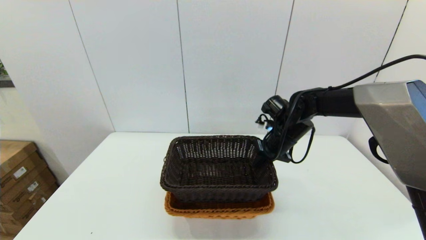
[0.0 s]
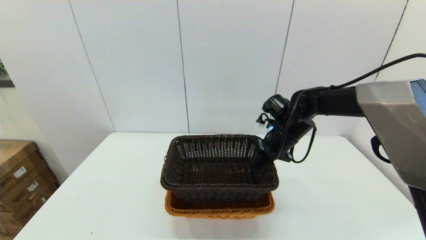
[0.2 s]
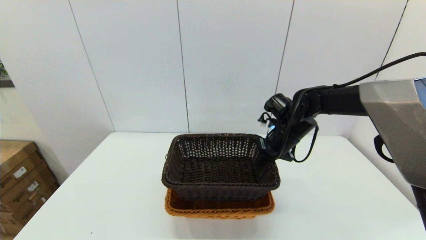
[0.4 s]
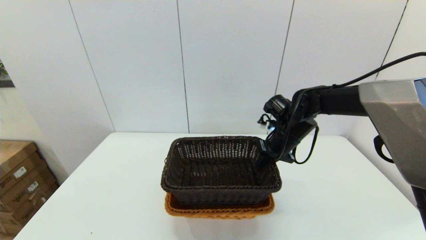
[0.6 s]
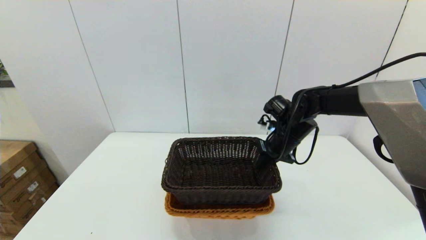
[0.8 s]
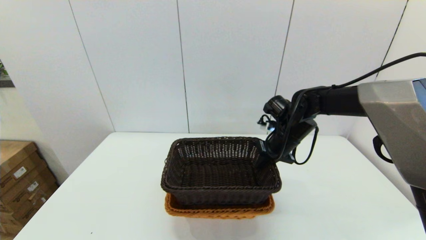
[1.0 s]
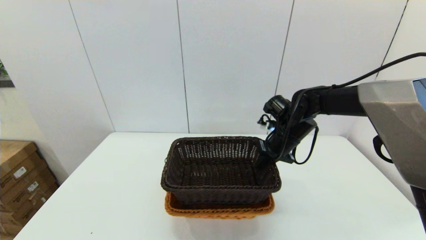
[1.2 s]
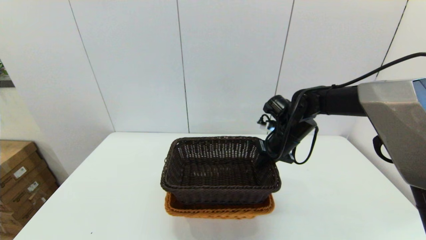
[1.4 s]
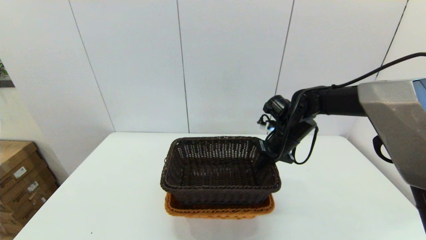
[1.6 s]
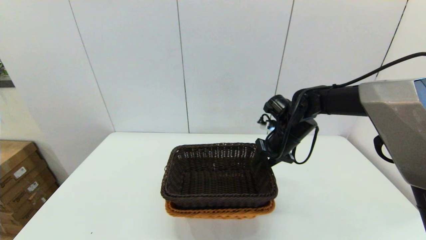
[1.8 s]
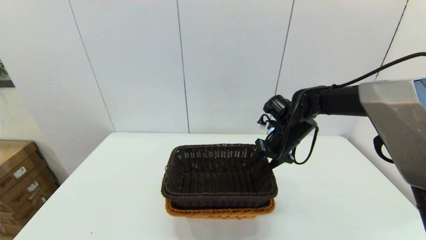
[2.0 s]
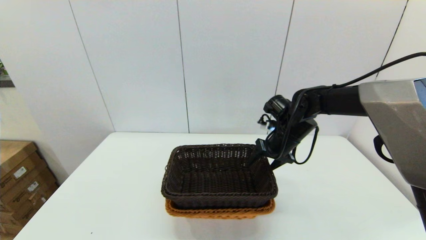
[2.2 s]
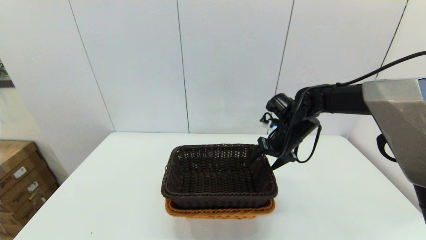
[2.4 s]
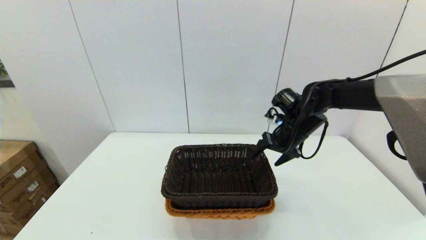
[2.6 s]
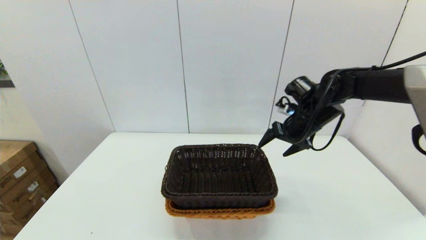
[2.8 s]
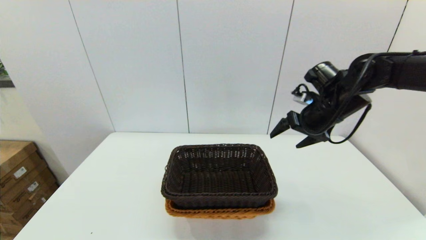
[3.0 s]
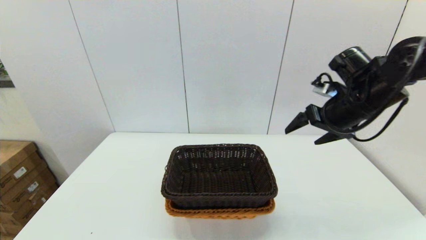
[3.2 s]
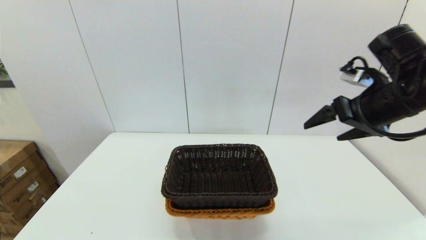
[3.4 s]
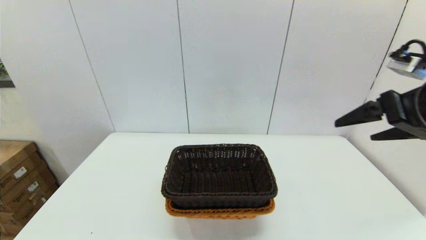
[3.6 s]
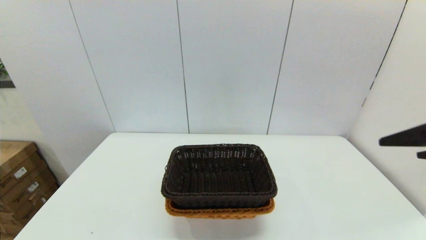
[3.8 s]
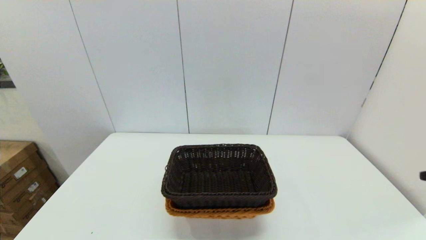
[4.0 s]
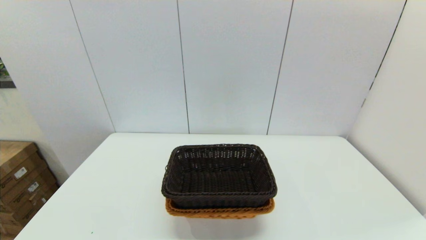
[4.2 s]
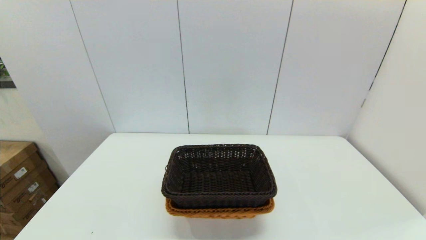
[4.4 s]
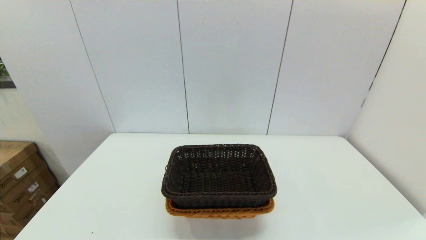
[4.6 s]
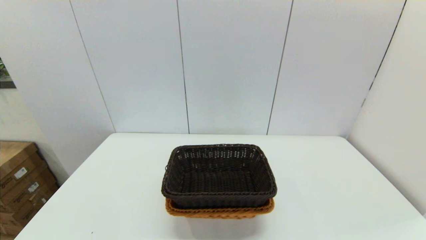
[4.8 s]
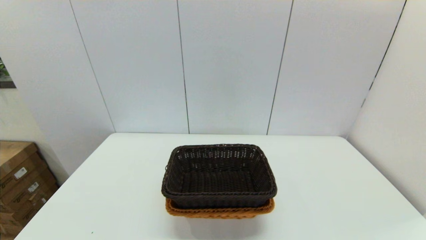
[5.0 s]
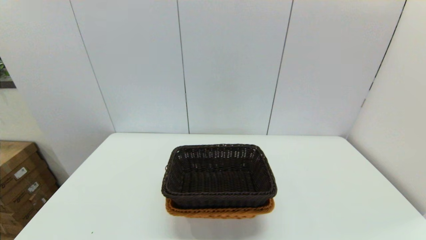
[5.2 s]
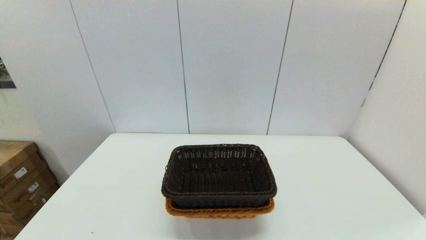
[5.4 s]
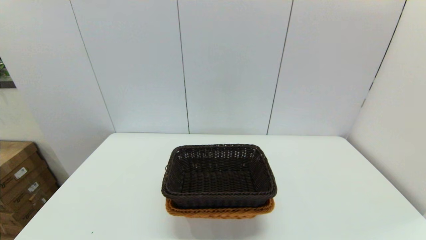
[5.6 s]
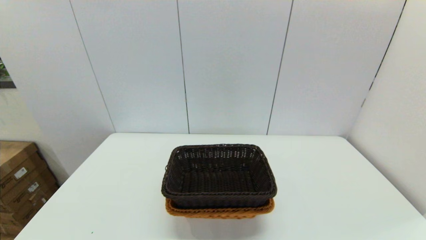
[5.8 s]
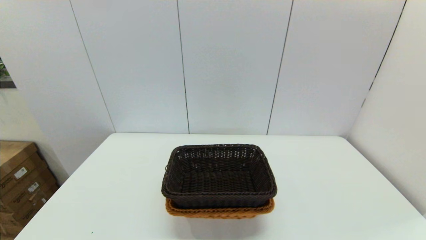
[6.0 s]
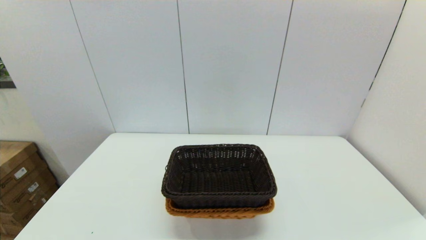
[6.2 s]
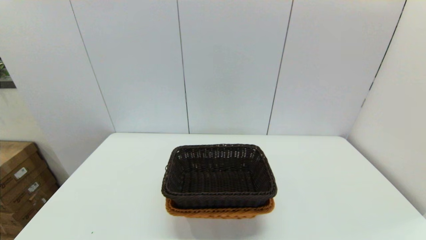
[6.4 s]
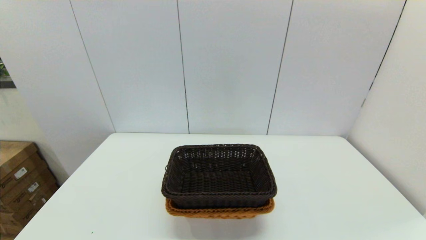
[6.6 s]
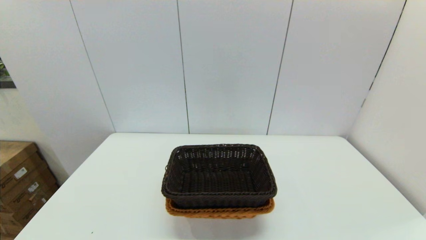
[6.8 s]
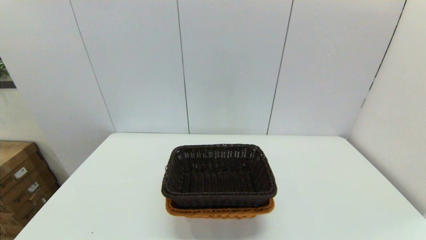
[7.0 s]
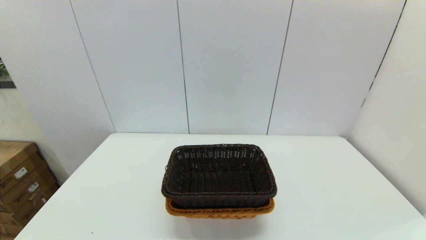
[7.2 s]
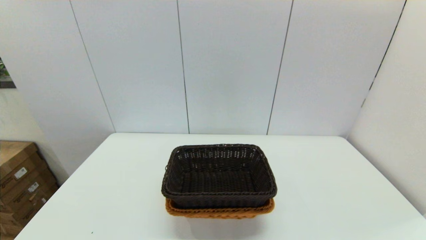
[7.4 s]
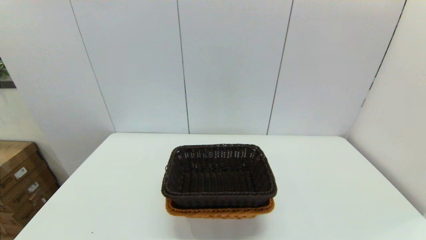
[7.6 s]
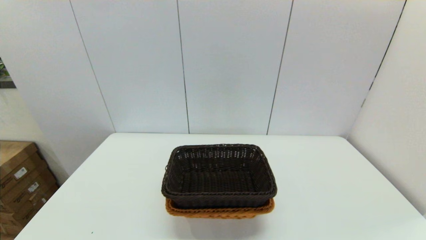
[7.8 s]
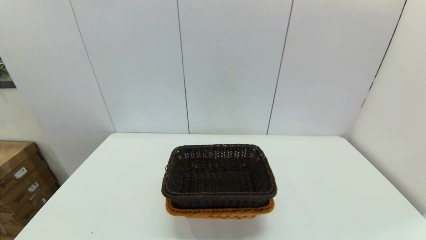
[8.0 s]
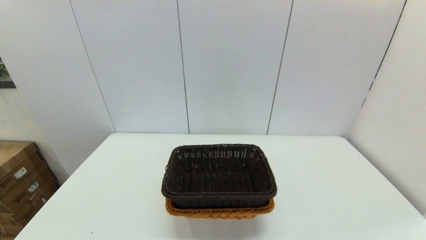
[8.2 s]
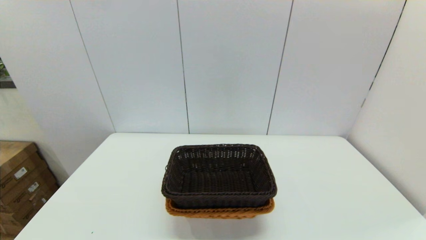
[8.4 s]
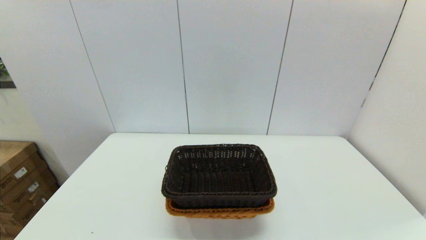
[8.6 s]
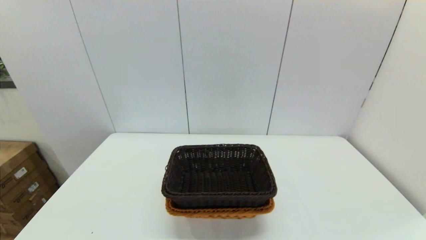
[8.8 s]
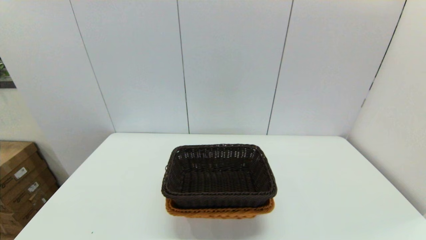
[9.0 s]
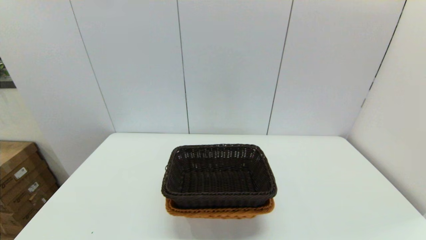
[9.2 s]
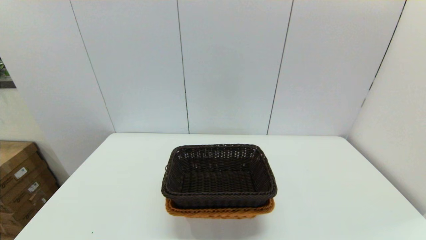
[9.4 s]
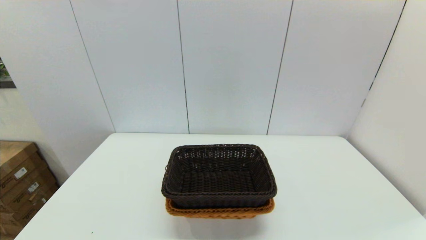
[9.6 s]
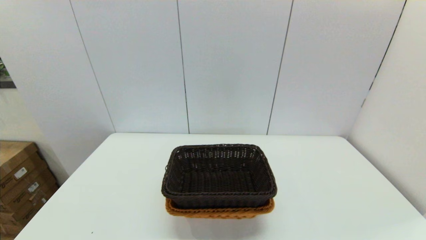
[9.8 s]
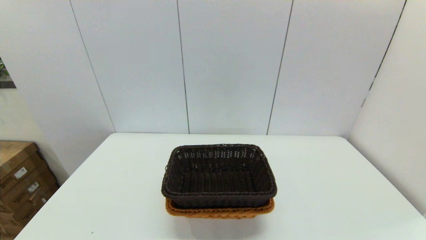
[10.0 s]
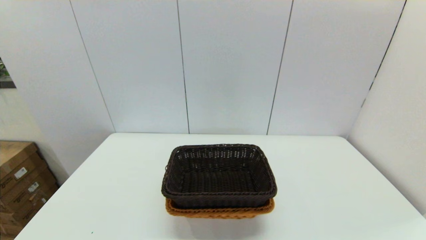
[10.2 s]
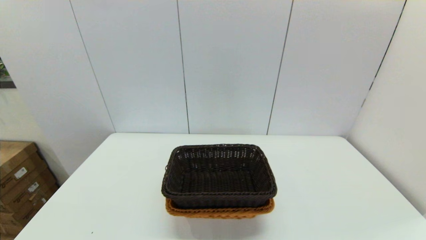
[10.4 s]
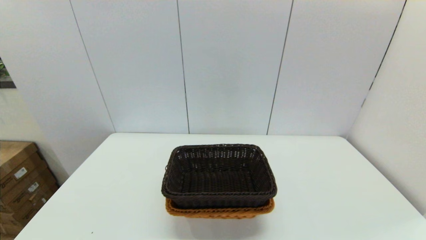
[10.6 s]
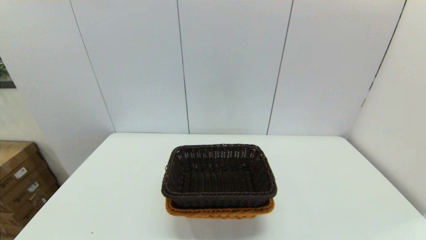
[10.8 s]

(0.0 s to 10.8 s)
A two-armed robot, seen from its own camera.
Task of the whole recording: stack a basket on top of another basket.
Step, 0.0 s - 2.8 s: Place the dark basket into the light color basket with the right gripper.
0.0 s - 1.6 s: Both grippers stay put.
1.6 s - 3.0 s: The right gripper heads upward and to the right, covering about 10 cm, and opens.
3.0 s - 4.6 s: The right gripper heads backward, covering approximately 40 cm.
9.2 s - 10.8 s: Both grippers stay about where they are.

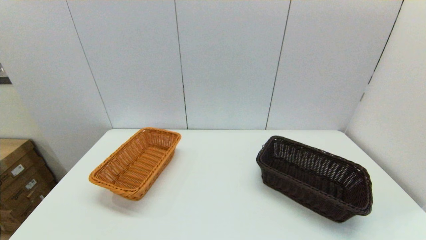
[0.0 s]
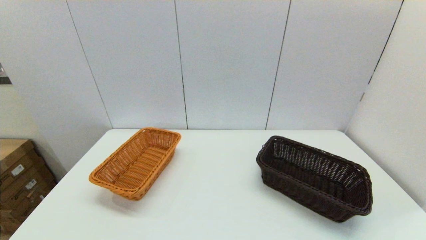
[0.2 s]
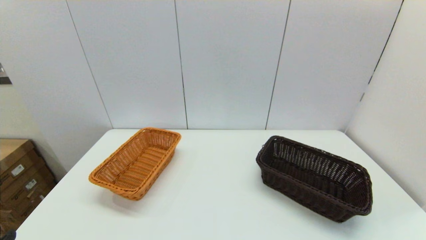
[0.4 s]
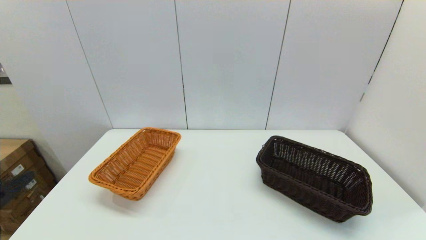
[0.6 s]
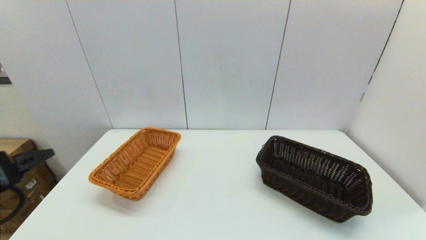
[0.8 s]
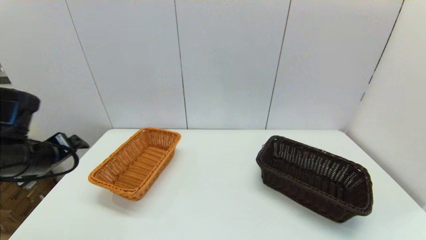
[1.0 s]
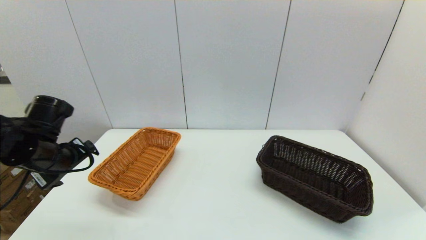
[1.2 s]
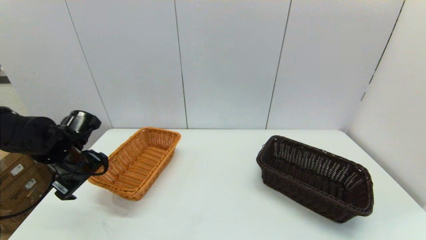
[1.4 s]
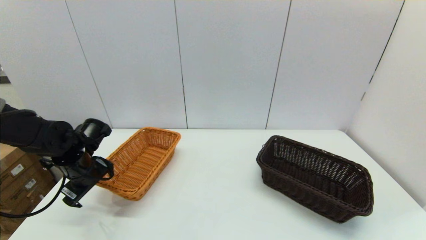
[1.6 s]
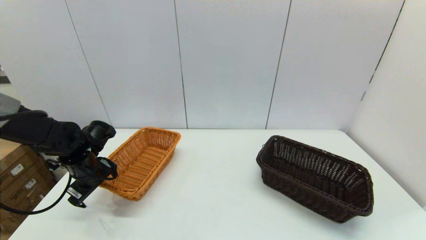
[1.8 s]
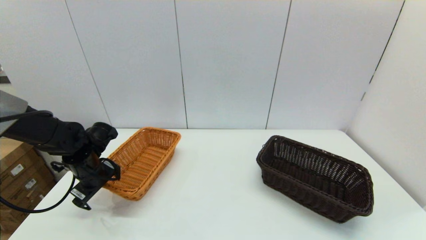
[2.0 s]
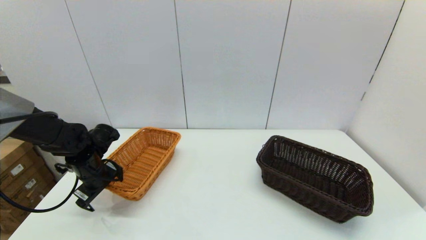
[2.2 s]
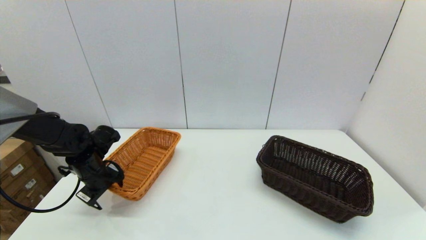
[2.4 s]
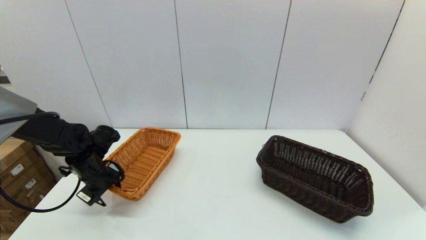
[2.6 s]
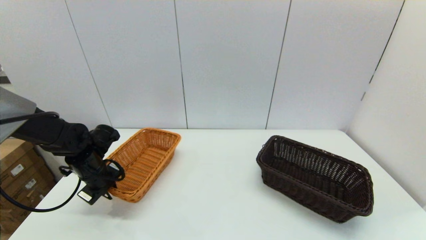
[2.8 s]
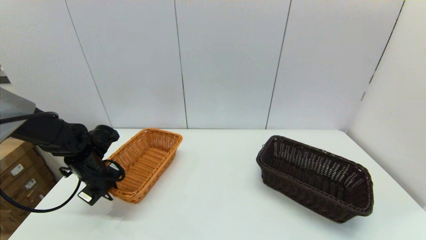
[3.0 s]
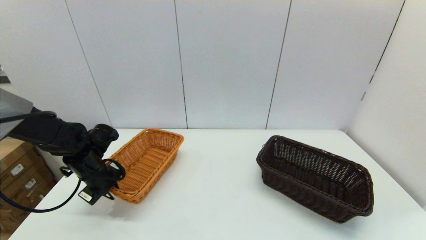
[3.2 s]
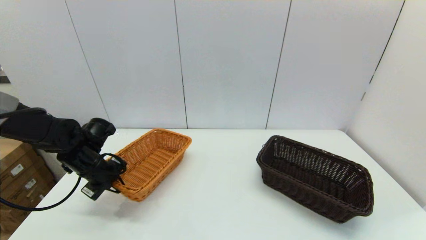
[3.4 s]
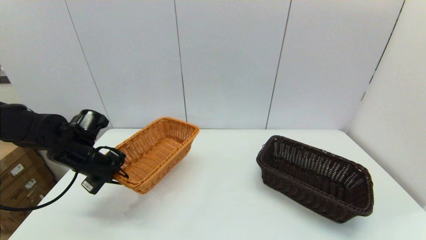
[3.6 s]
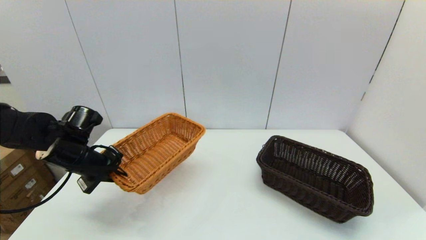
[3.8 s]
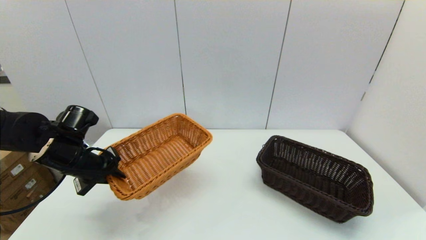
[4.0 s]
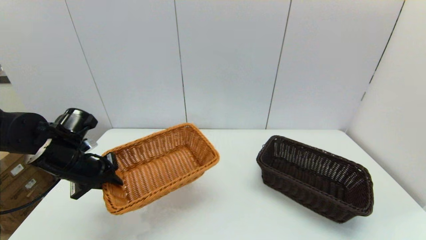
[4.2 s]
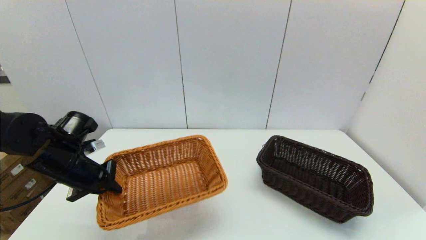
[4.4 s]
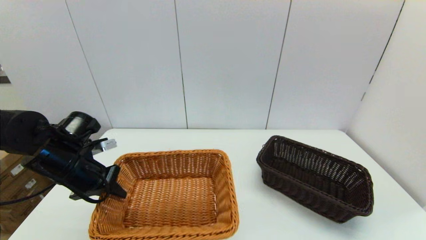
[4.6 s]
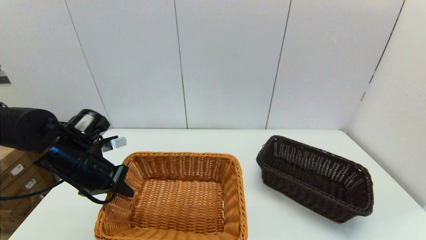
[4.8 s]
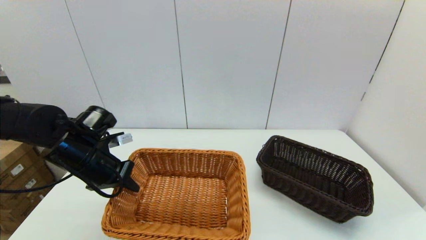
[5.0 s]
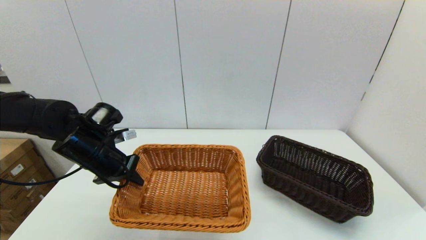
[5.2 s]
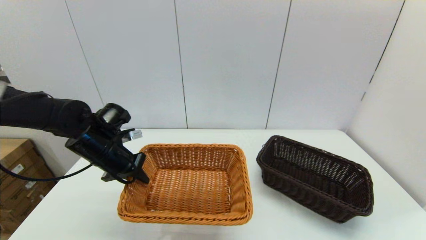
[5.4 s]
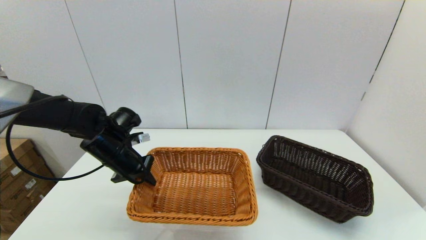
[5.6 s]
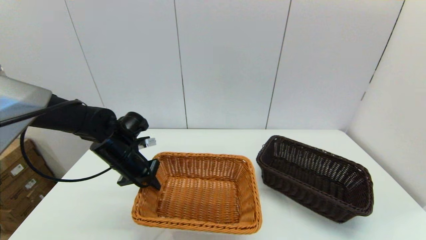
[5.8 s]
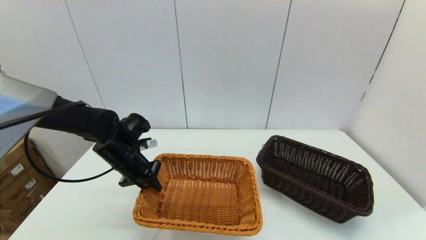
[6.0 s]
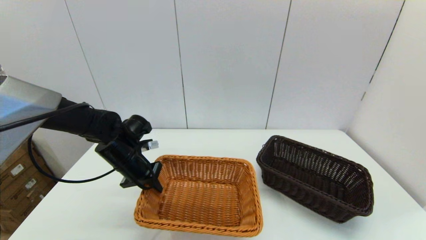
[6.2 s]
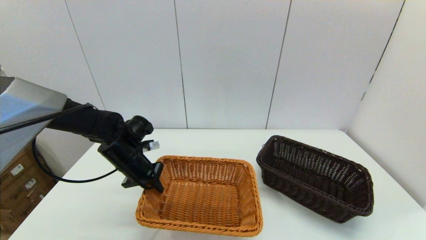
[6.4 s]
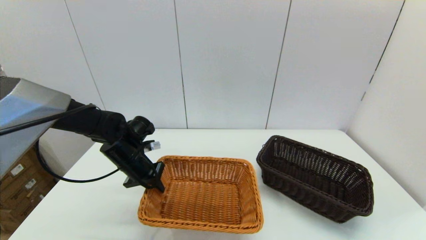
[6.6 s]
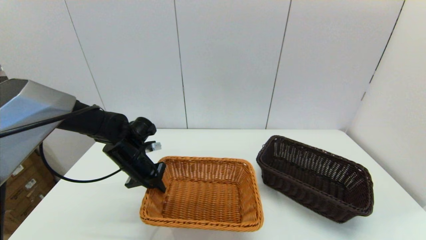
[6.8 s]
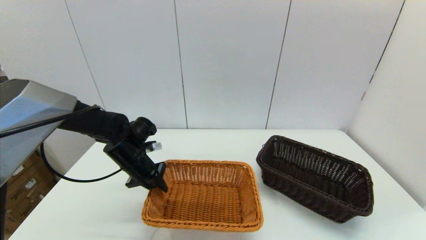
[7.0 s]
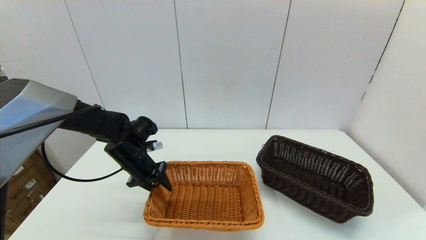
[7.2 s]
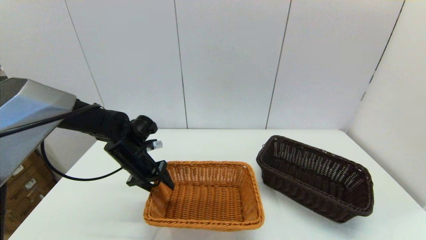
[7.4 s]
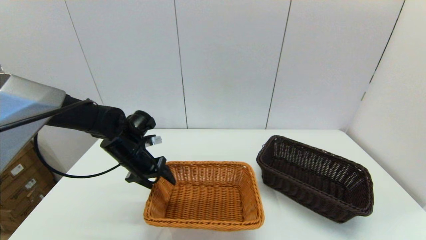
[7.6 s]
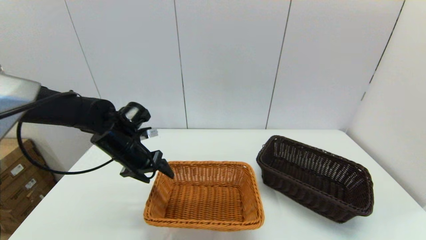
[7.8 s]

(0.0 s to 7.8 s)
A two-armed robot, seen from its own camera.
Task of the whole recording: stack a basket on top of another basket.
Step, 0.0 s - 2.8 s: Grasp the light basket with the left gripper.
0.0 s - 1.6 s: The left gripper is displaced forward by about 35 cm.
1.6 s - 3.2 s: The left gripper closes up.
3.2 s - 4.6 s: The left gripper is displaced upward and backward by about 10 cm.
4.6 s - 6.2 s: The left gripper goes roughly 10 cm forward and to the right.
6.2 s - 7.8 s: The left gripper opens up.
